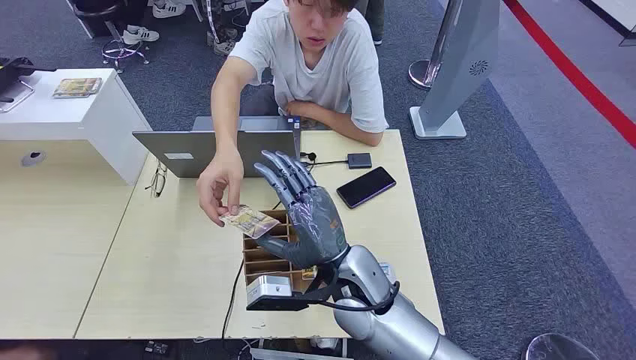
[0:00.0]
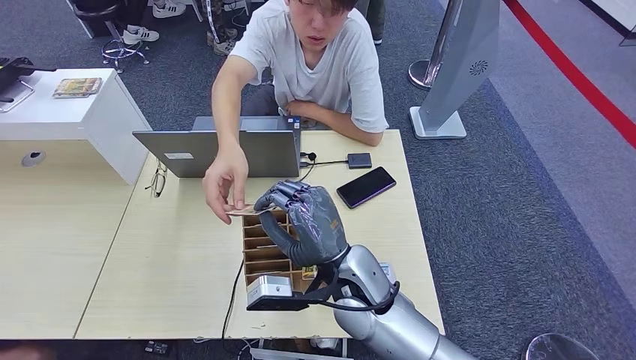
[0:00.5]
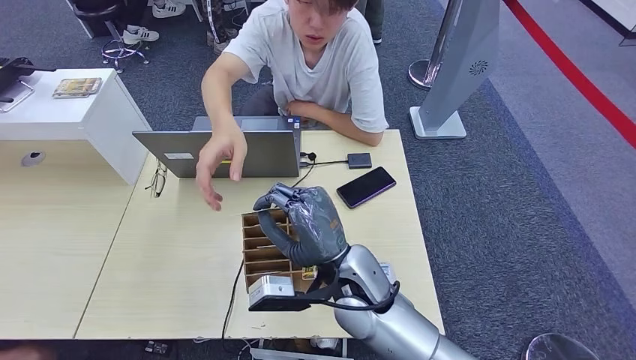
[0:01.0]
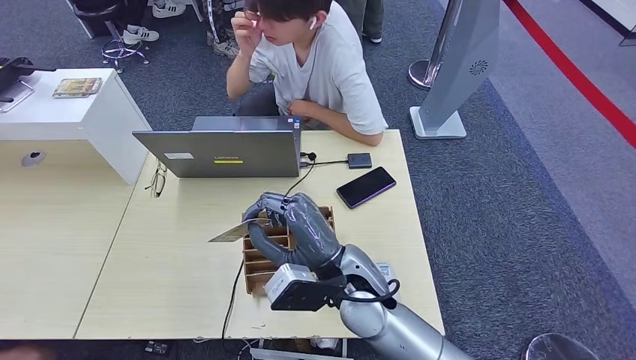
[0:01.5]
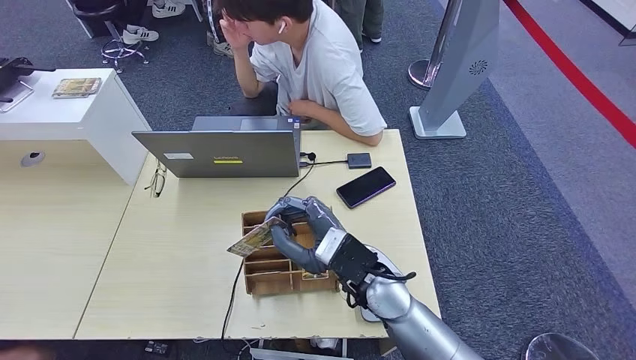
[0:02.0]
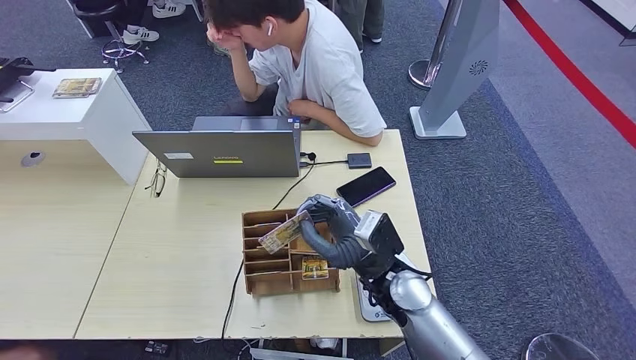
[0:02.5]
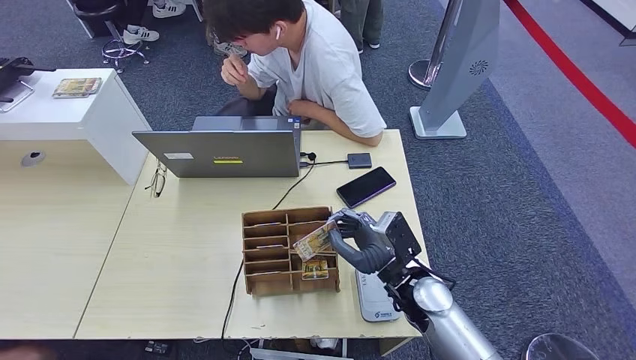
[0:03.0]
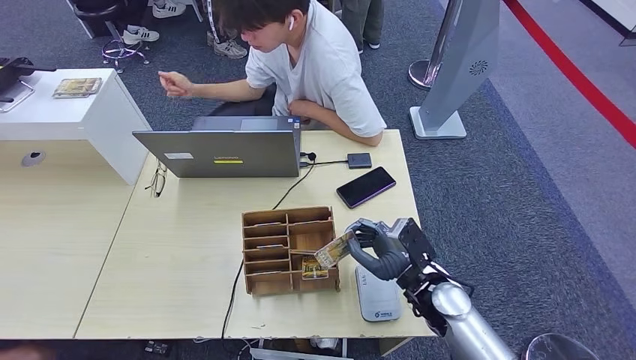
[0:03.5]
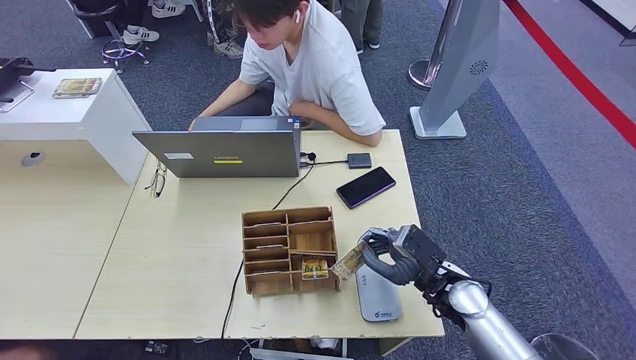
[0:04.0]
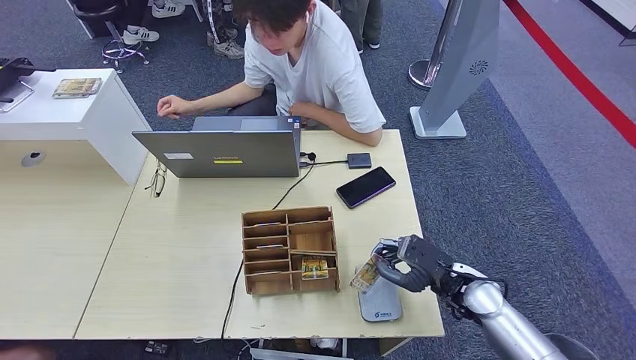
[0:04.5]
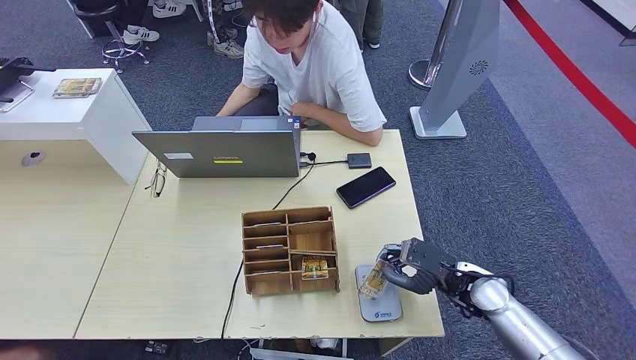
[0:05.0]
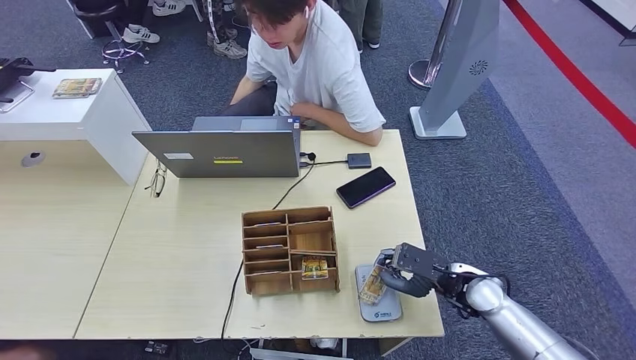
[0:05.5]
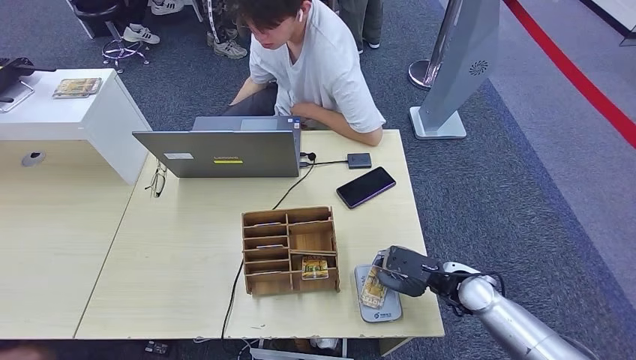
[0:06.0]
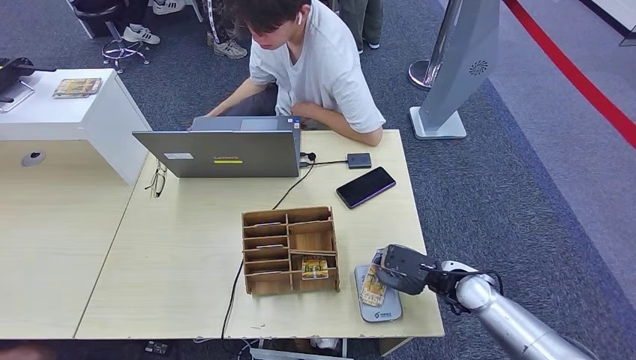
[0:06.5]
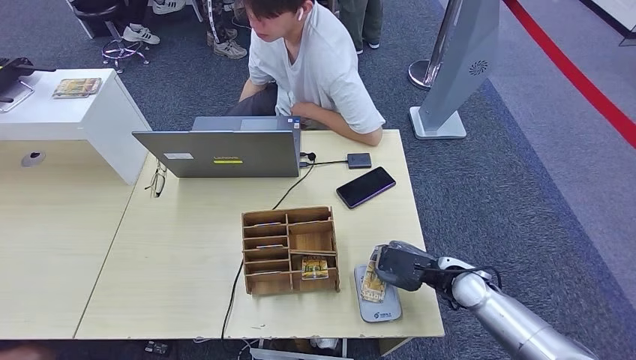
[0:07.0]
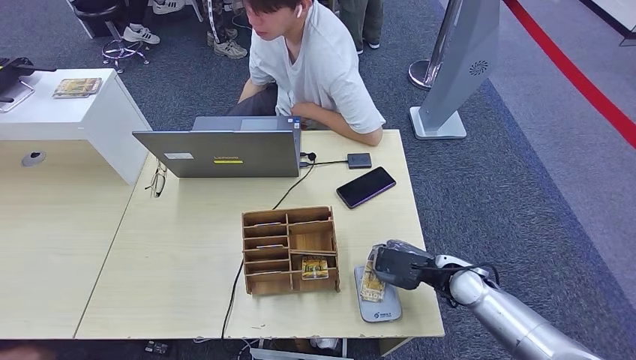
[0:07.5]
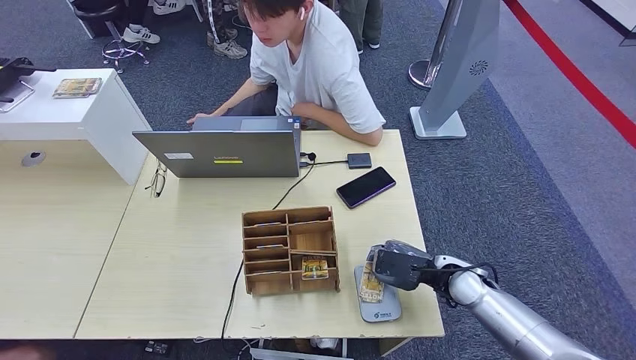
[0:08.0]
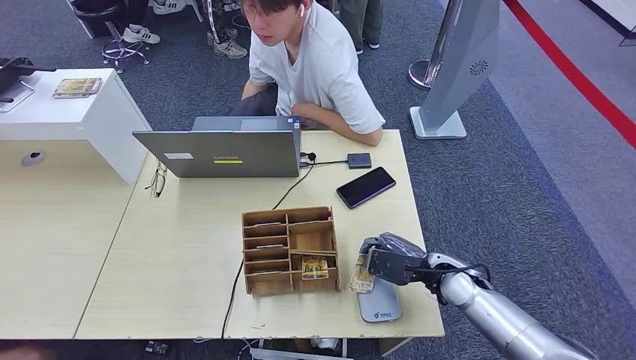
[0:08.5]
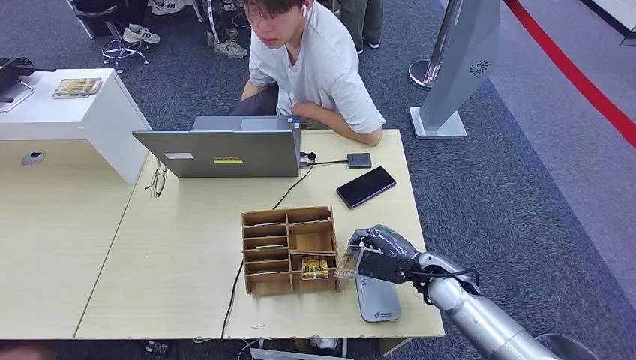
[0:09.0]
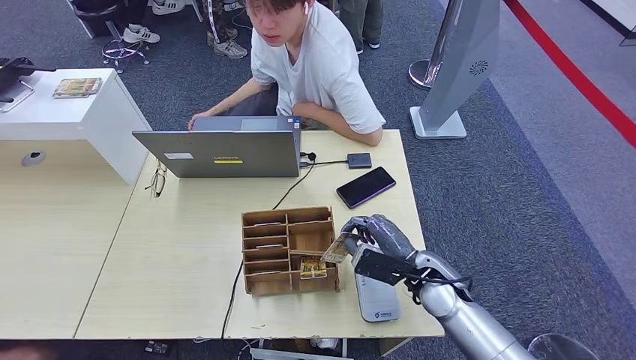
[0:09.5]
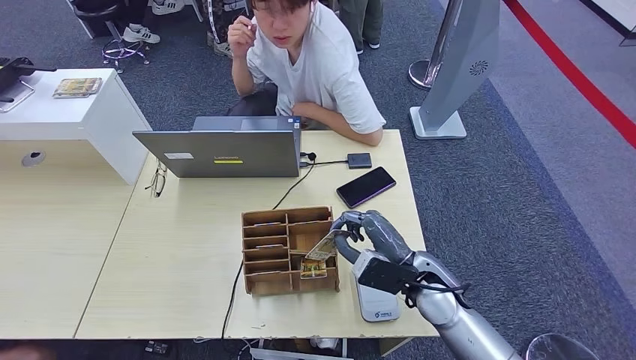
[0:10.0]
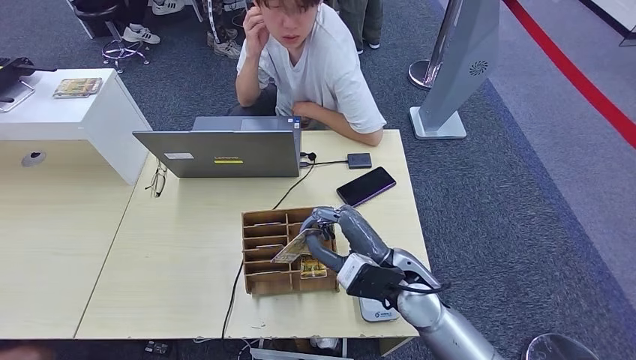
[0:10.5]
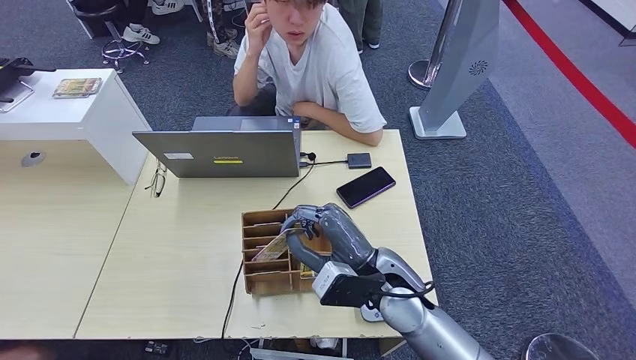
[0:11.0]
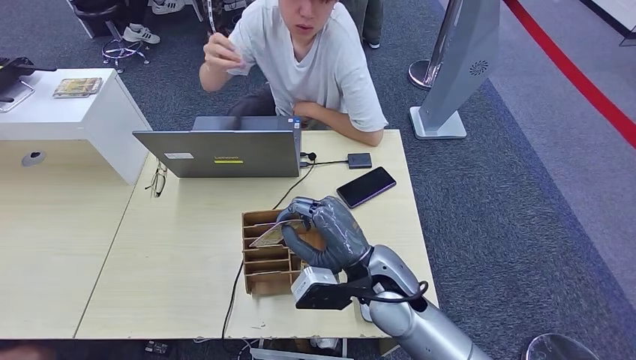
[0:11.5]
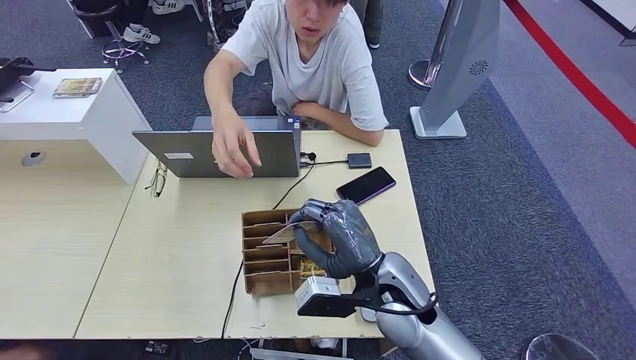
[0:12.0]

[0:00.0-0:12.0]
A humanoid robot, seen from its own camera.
Step, 0:00.0 to 0:01.5: Take the ID card from the person's hand.
Step, 0:02.0 to 0:10.0: Place the ID card on the card reader.
0:02.0 to 0:04.0: The right hand travels to the right and downward by about 20 cm.
0:06.0 to 0:08.0: The hands move only a little.
0:08.0 to 0:10.0: The right hand shifts approximately 10 cm to the left and upward.
0:10.0 to 0:12.0: The right hand moves to the left and upward, approximately 10 cm.

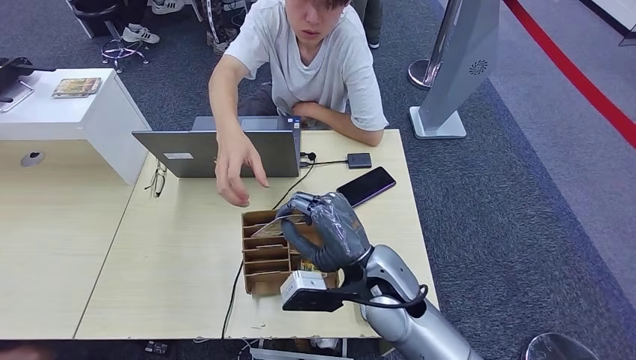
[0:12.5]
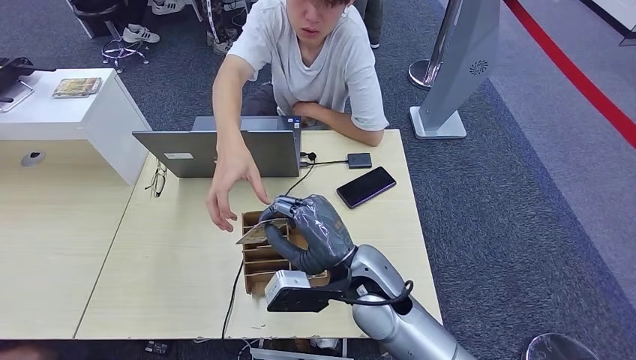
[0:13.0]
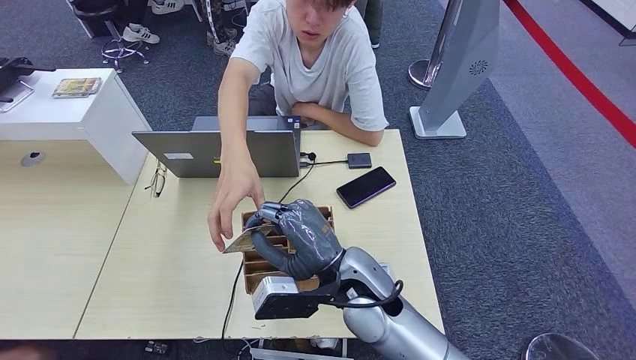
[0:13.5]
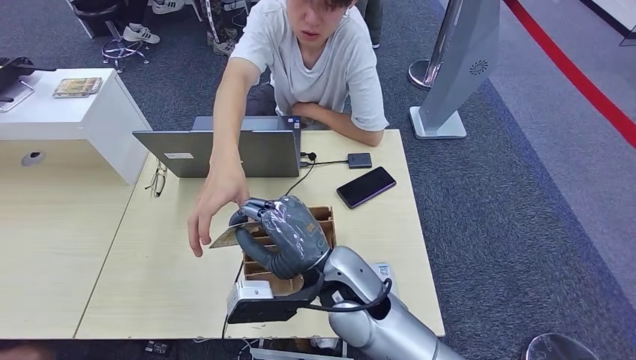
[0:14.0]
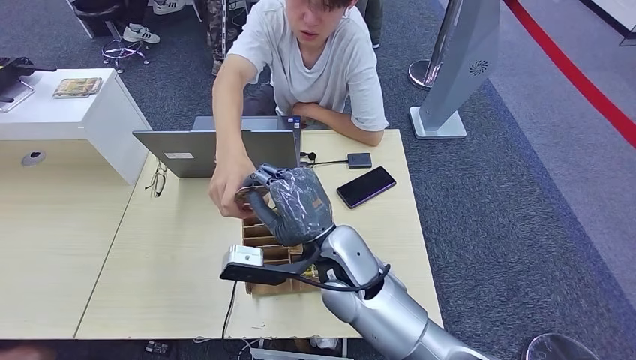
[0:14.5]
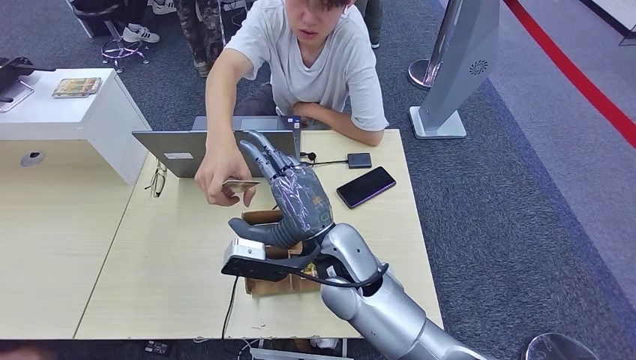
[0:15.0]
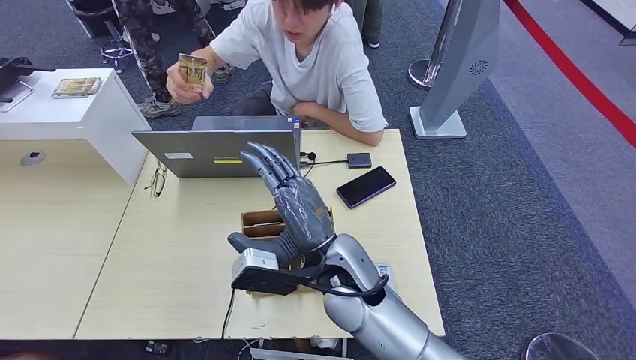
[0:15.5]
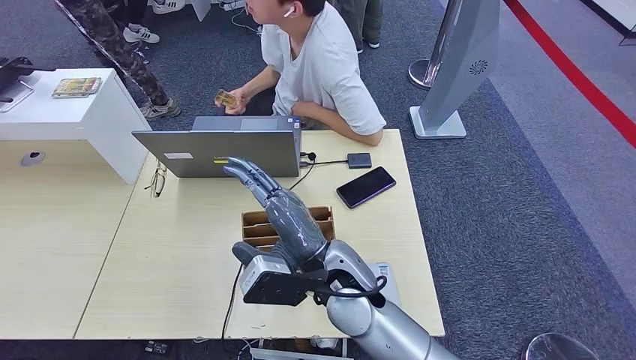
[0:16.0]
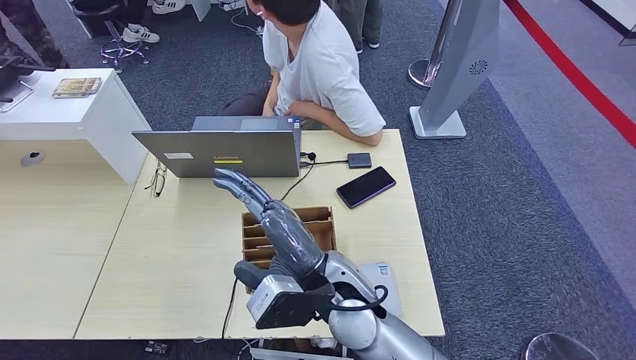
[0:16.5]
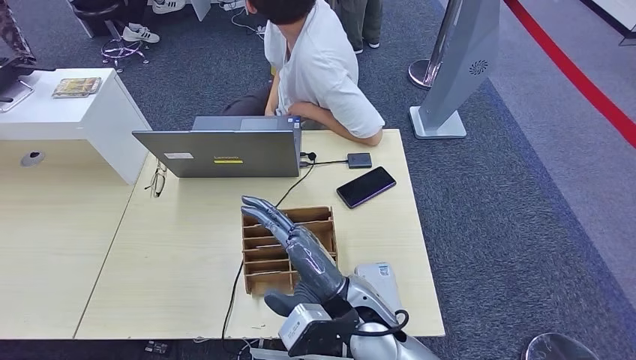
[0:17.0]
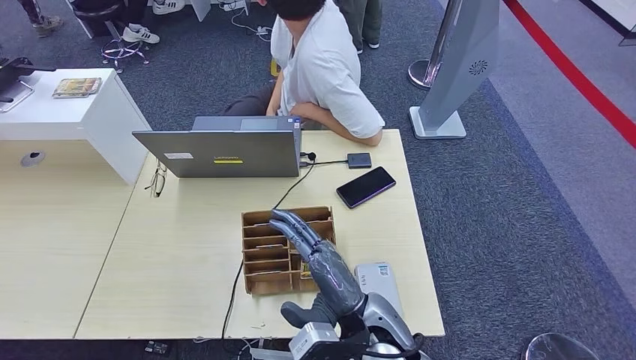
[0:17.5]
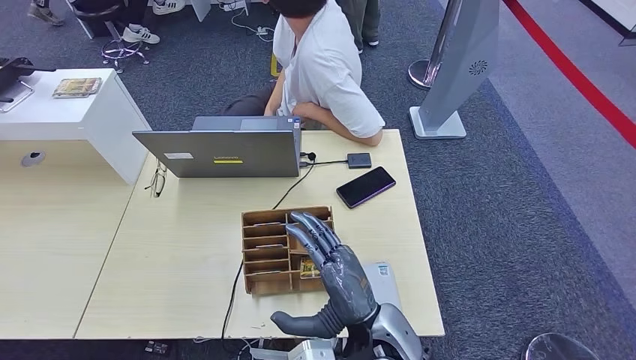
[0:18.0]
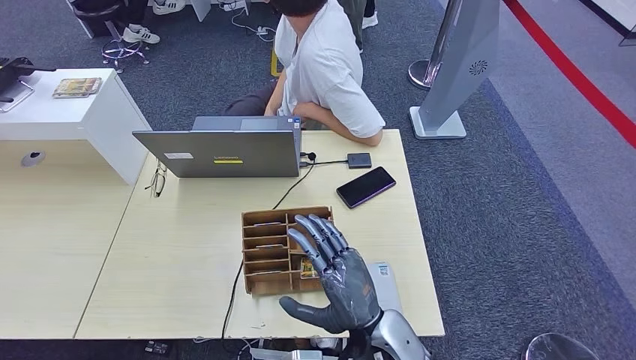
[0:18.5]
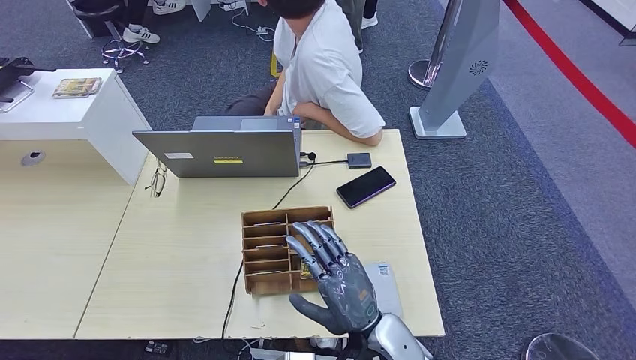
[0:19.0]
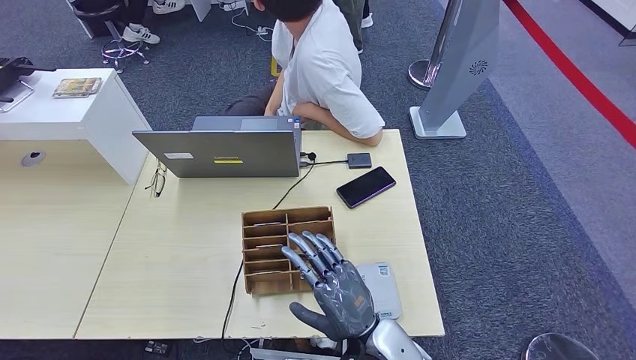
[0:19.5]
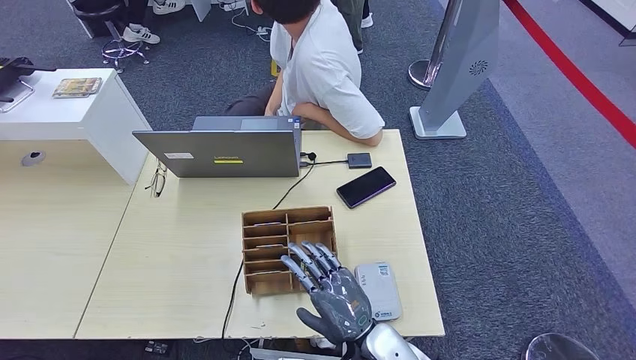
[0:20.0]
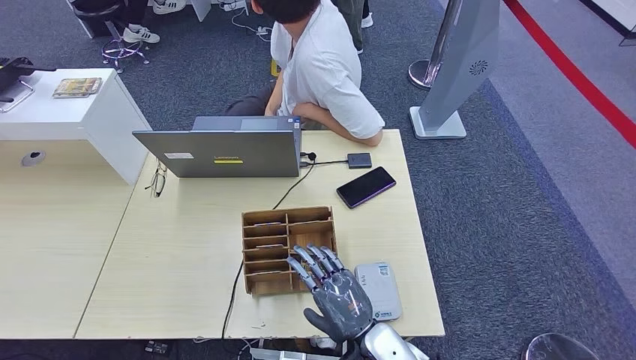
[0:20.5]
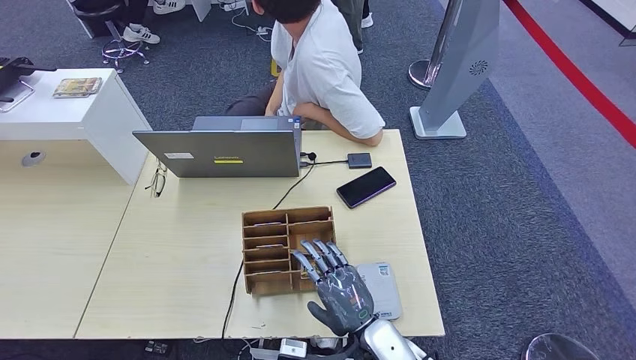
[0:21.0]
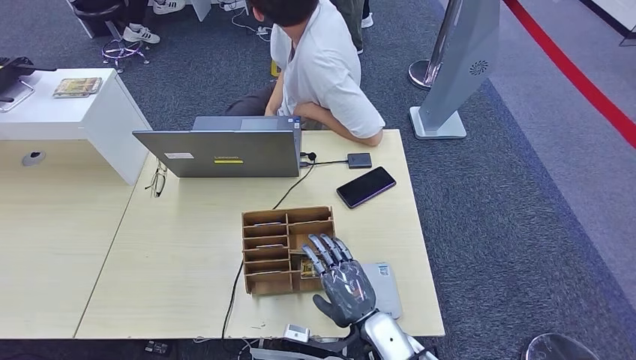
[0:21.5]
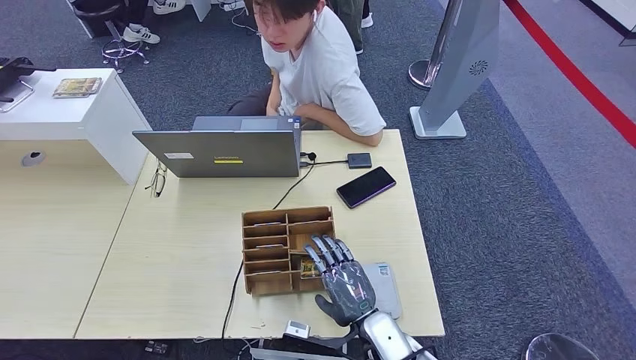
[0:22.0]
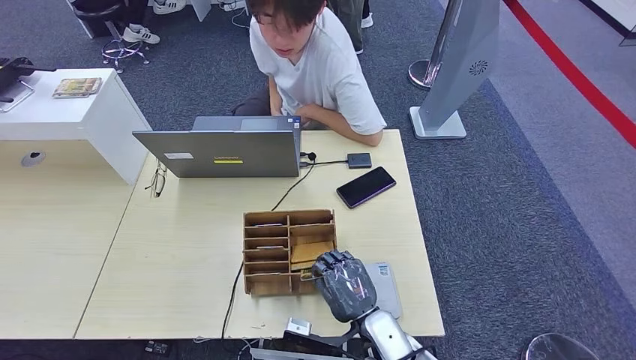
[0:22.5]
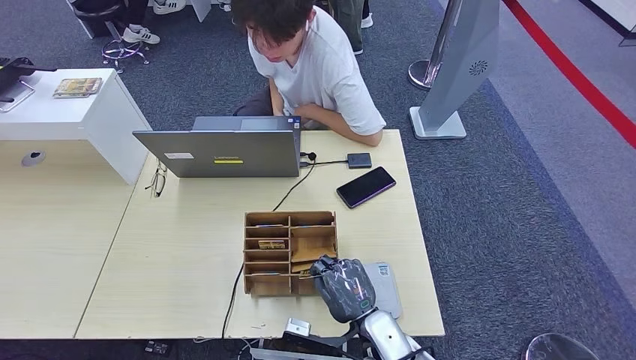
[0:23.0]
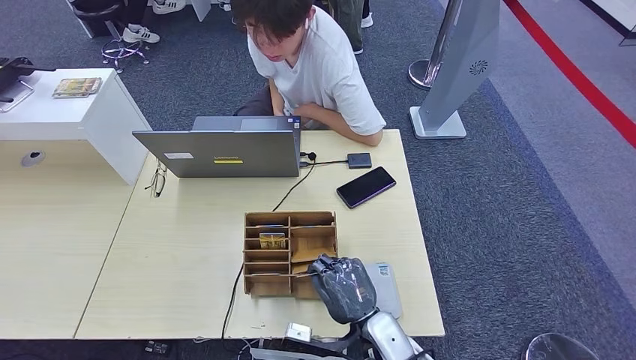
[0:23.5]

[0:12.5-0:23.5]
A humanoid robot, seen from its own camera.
Step, 0:12.5 to 0:15.0: Hand the ID card to the person.
0:12.5 to 0:14.5: The right hand goes roughly 5 cm to the left.
0:16.0 to 0:18.0: The right hand shifts about 10 cm backward, downward and to the right.
0:18.0 to 0:20.0: The right hand shifts by some 5 cm.
0:20.0 to 0:23.5: The hands move only a little.
